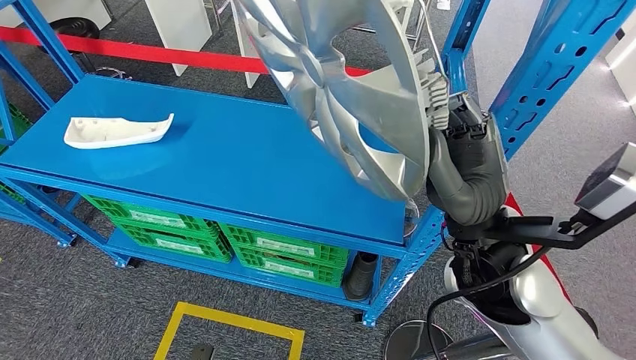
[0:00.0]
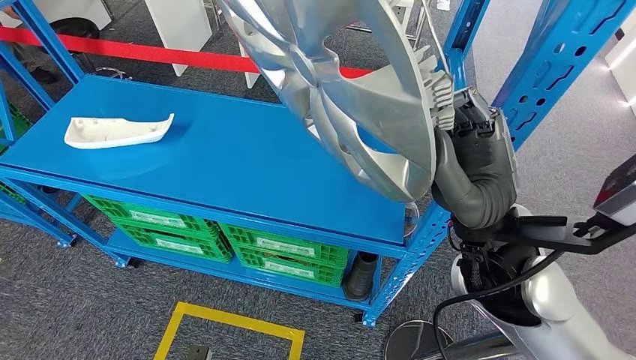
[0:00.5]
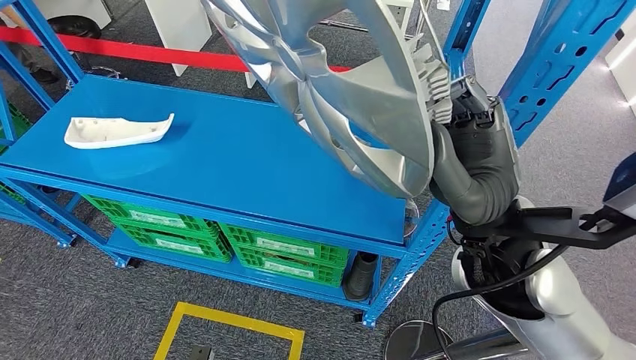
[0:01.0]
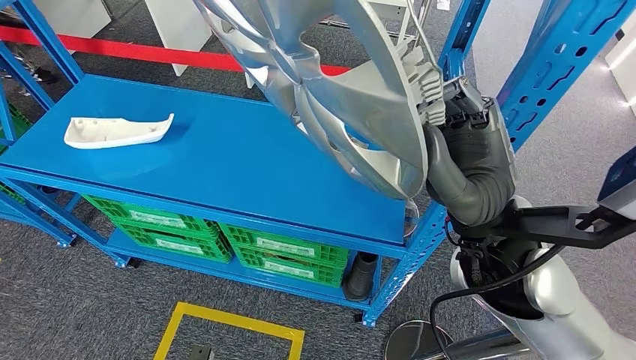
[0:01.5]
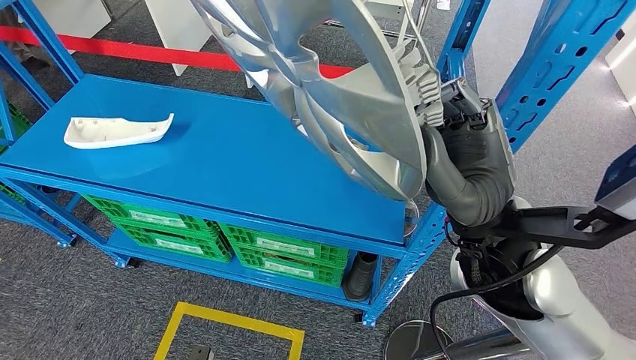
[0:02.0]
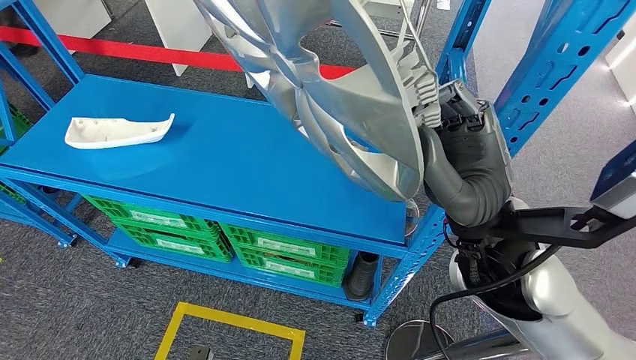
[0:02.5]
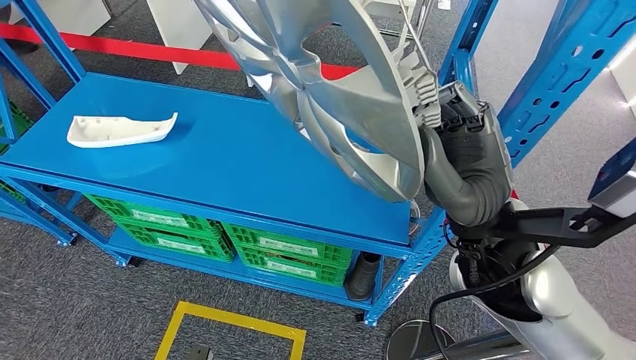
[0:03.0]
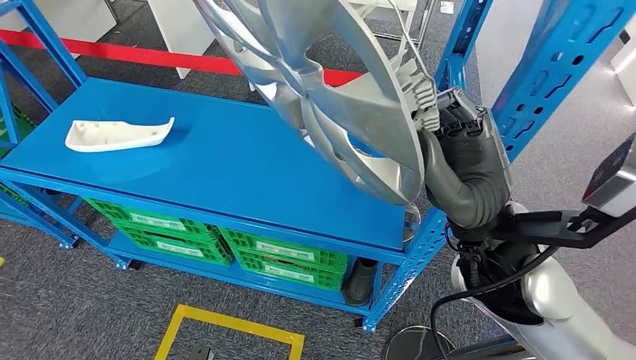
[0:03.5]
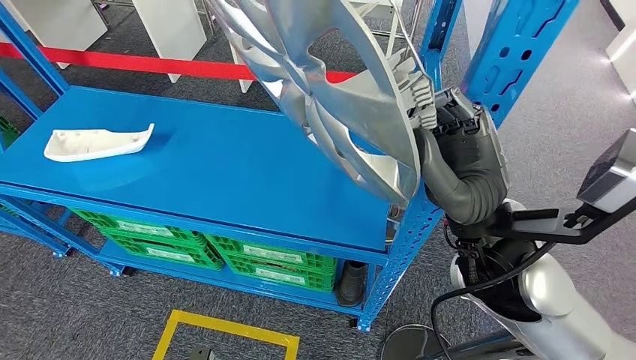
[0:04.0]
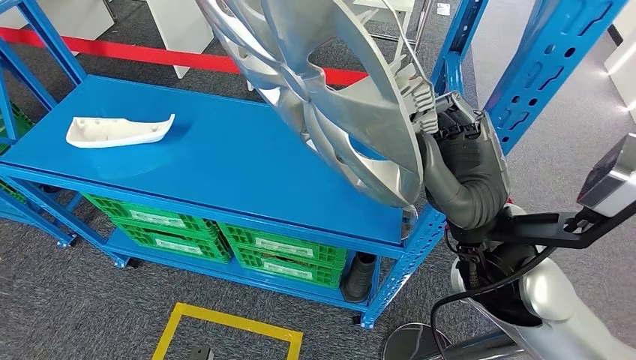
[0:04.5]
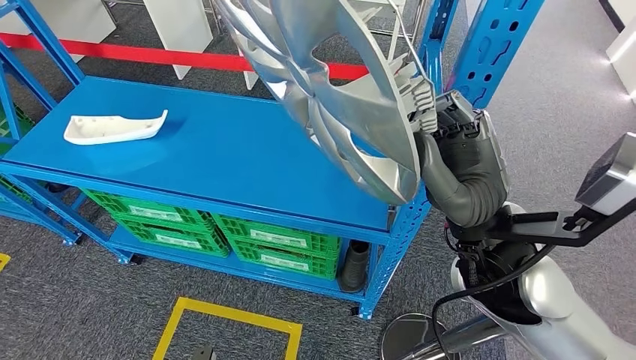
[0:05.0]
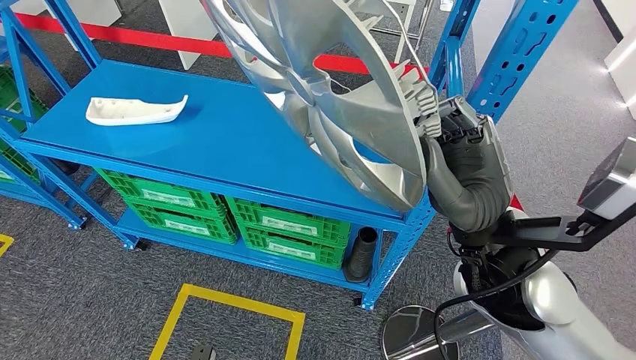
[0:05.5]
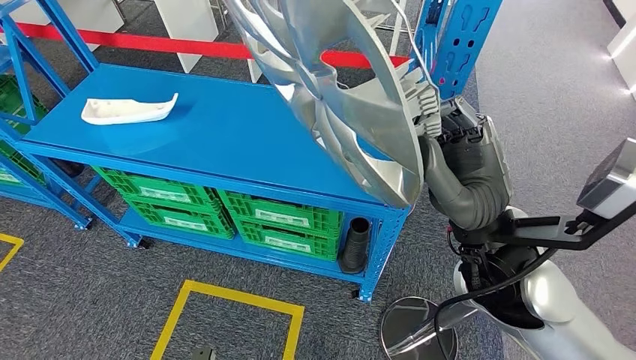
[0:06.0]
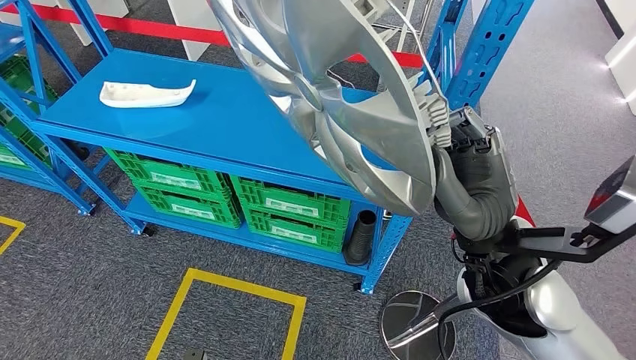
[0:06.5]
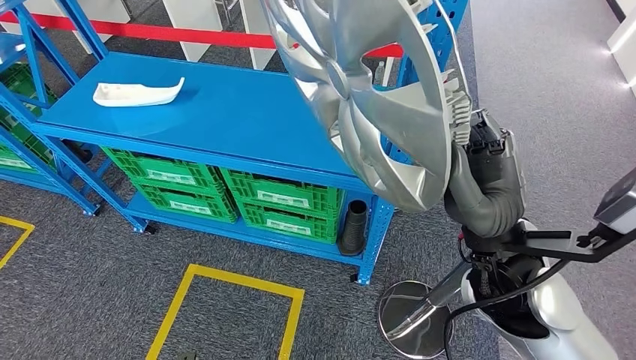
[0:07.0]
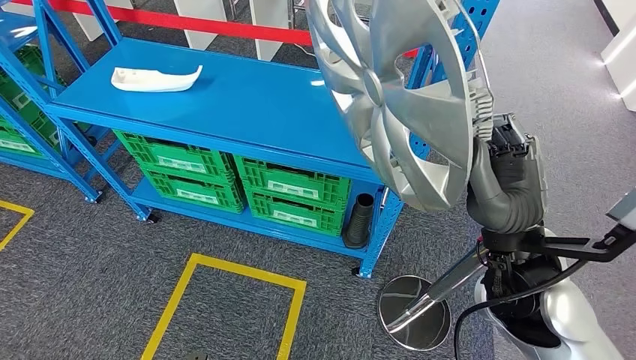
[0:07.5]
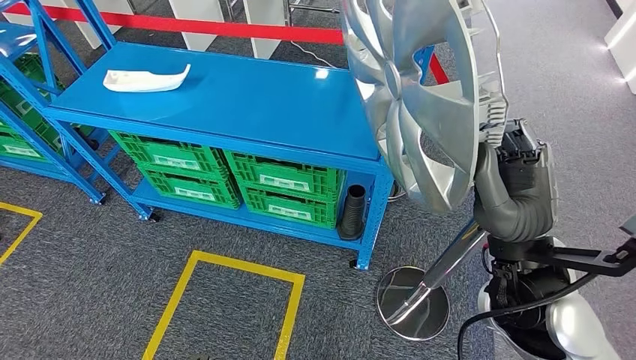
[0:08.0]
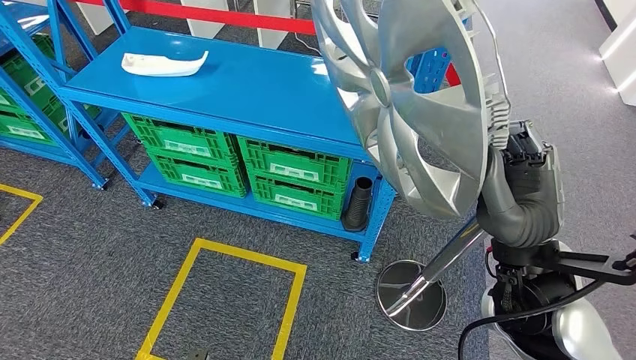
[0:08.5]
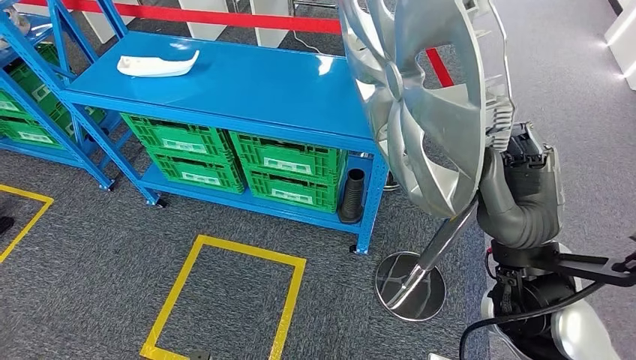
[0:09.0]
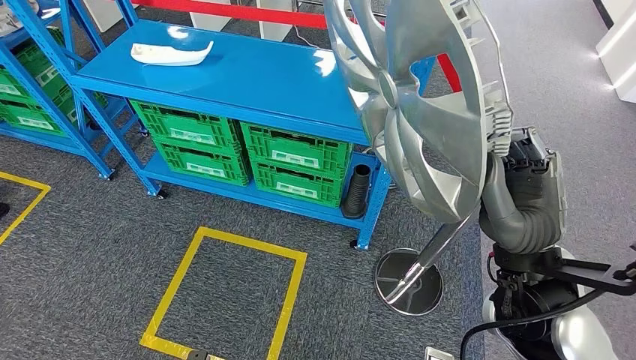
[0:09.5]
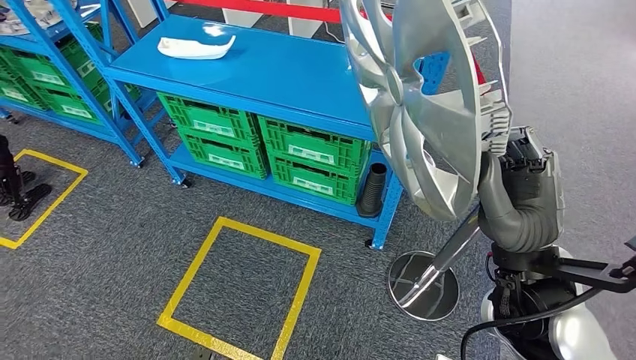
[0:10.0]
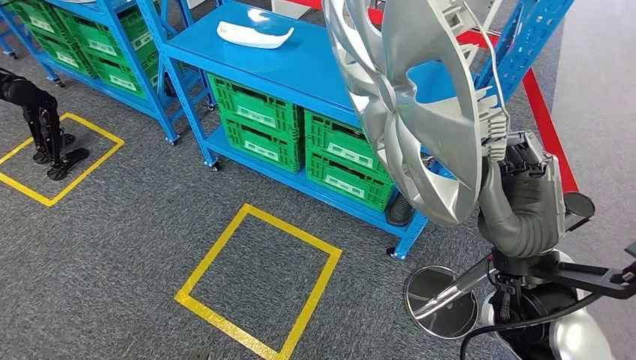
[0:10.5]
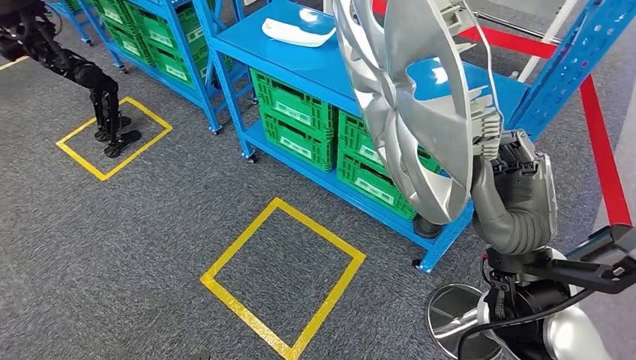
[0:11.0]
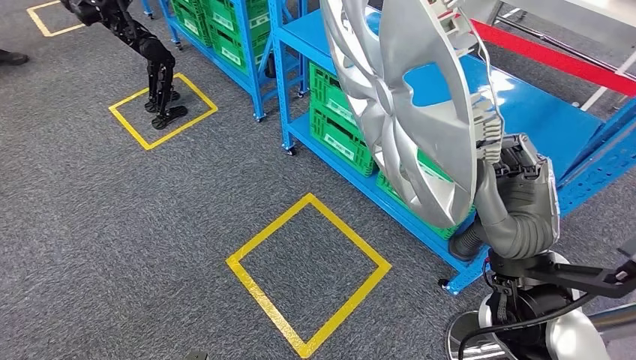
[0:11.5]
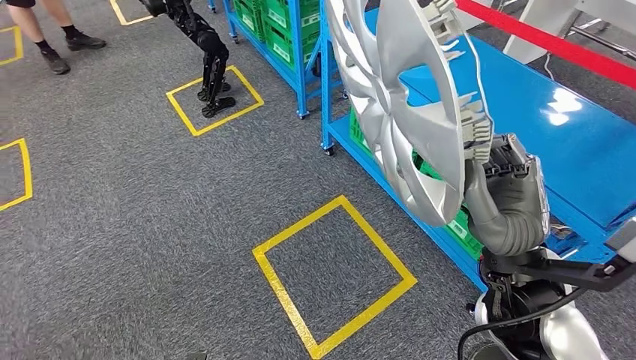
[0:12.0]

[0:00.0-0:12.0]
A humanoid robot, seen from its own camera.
0:00.0 to 0:02.0: There are only small adjustments of the hands.

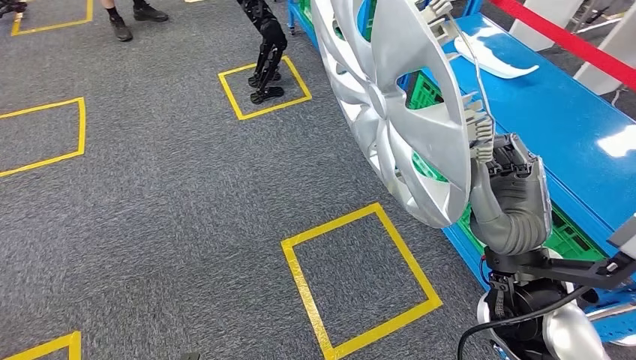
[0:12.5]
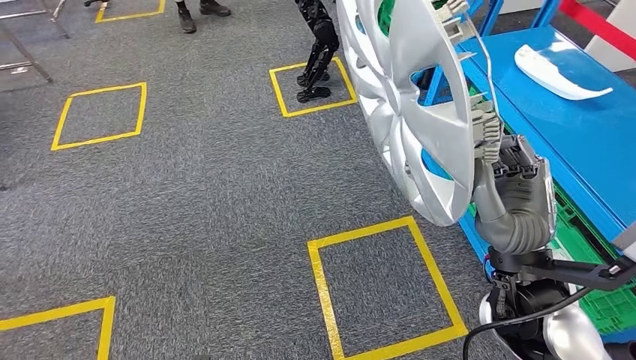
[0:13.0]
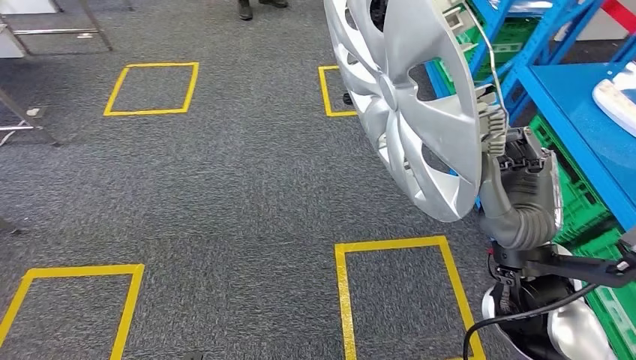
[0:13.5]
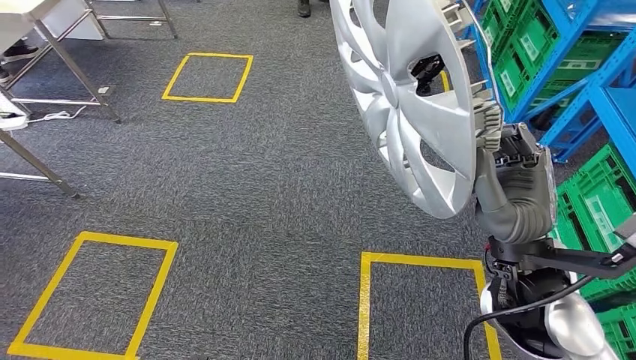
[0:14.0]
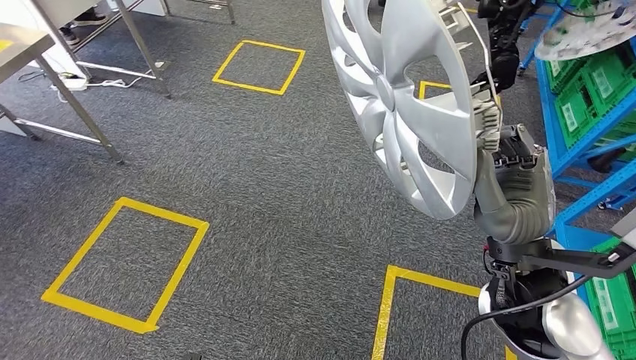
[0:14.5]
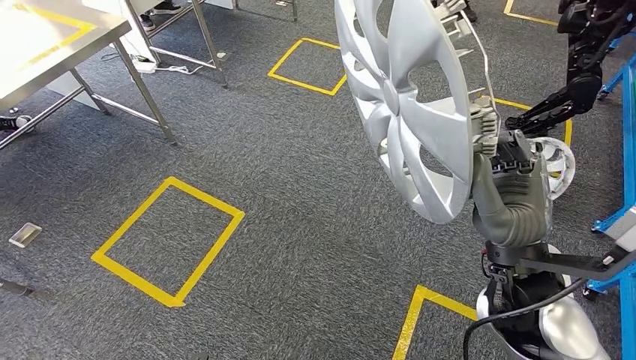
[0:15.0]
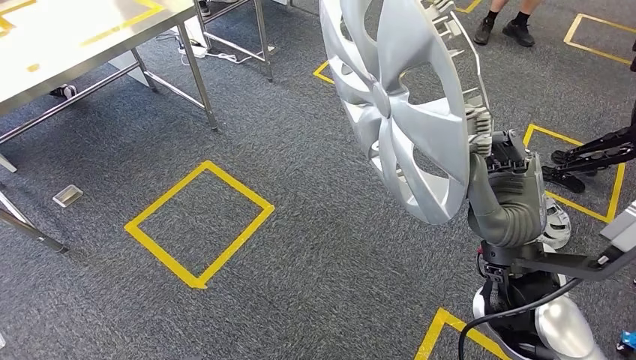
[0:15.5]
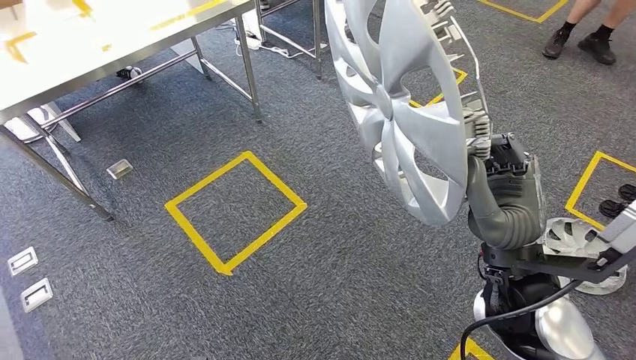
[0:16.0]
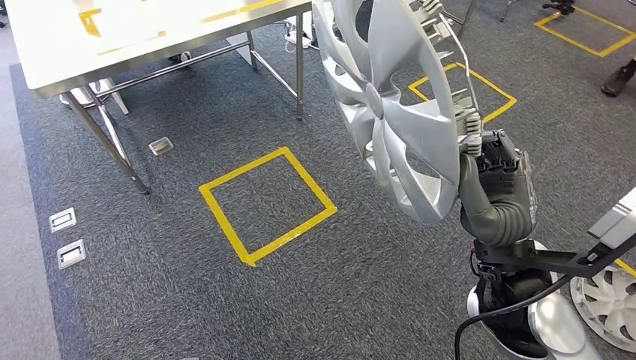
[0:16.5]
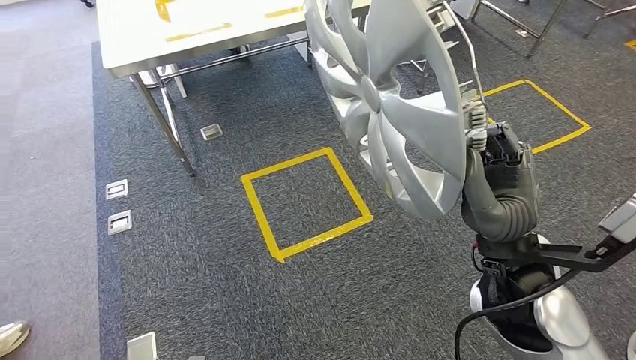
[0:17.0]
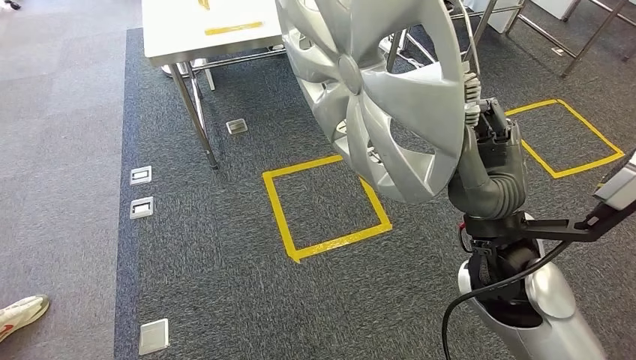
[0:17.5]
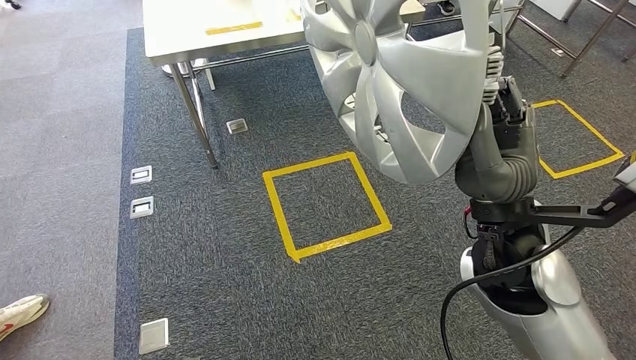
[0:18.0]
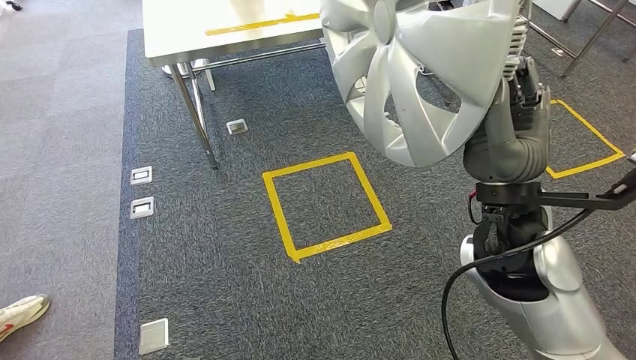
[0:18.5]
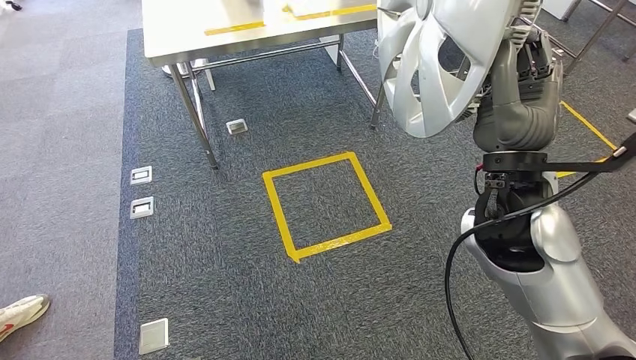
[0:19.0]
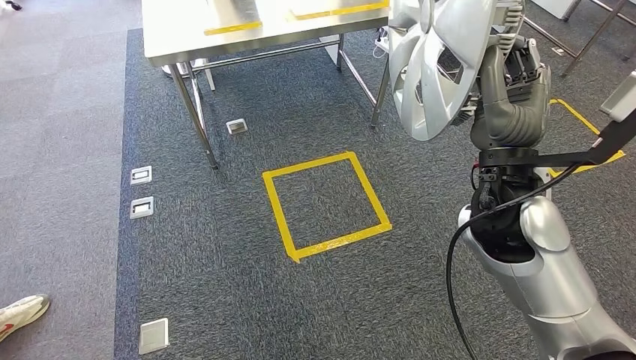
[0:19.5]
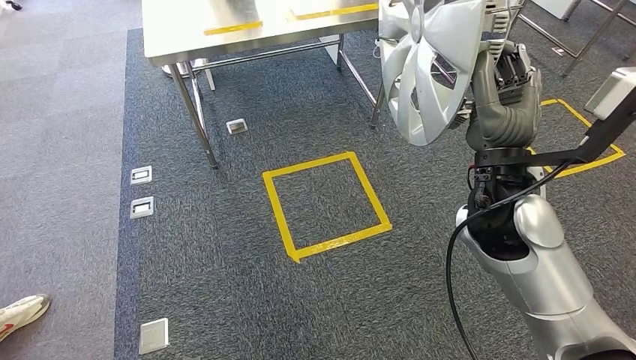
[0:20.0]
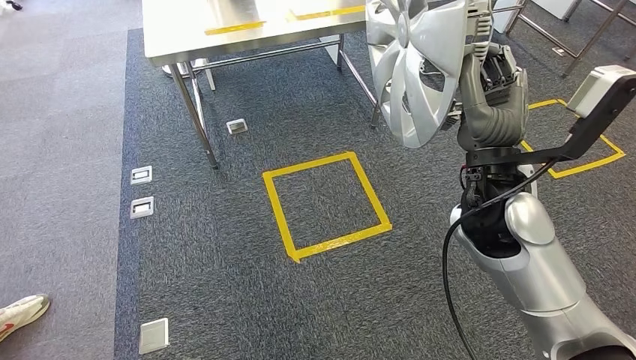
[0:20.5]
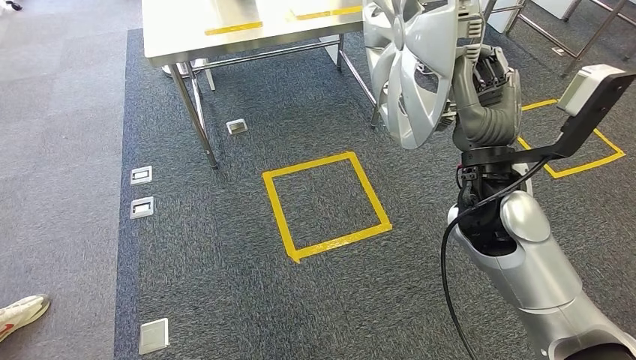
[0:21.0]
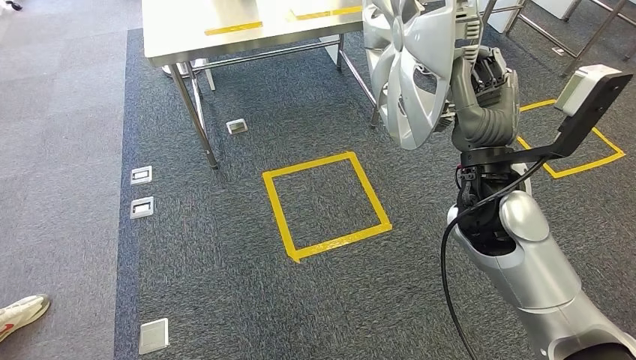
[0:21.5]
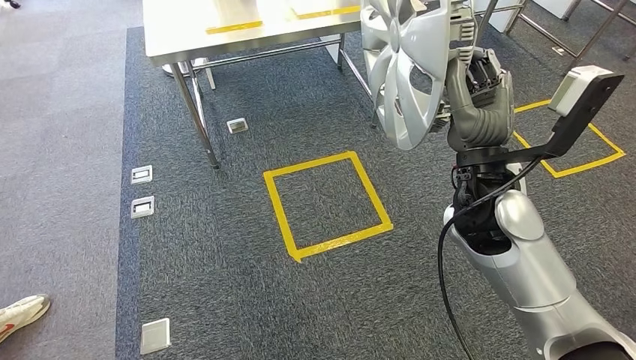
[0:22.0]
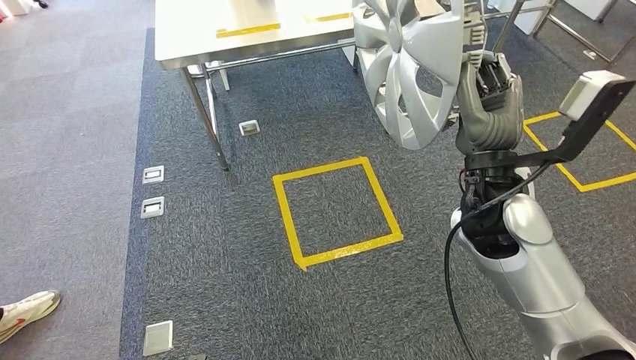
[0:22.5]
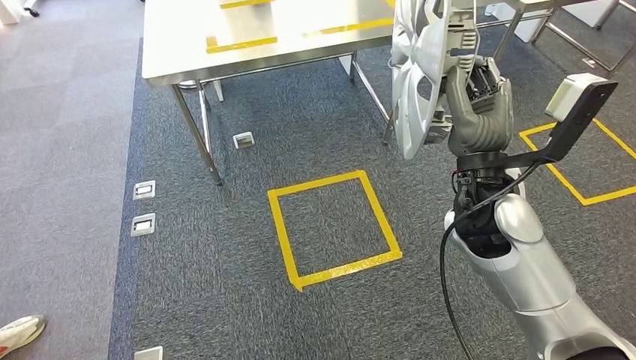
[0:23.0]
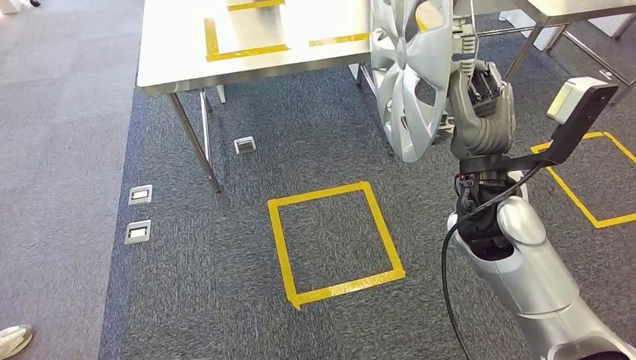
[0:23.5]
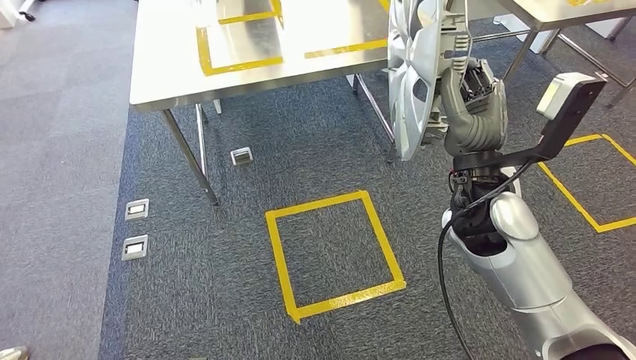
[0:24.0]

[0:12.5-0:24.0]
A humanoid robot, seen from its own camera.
0:18.5 to 0:20.0: The right hand moves some 5 cm.
0:20.0 to 0:22.0: The hands stay close to where they were, moving slightly.
